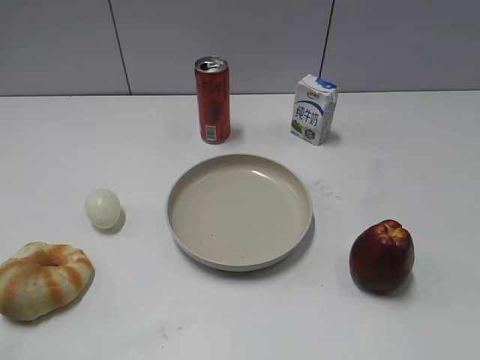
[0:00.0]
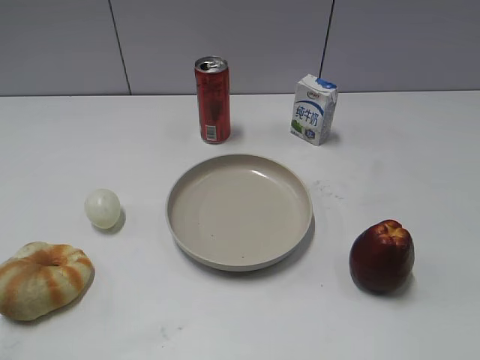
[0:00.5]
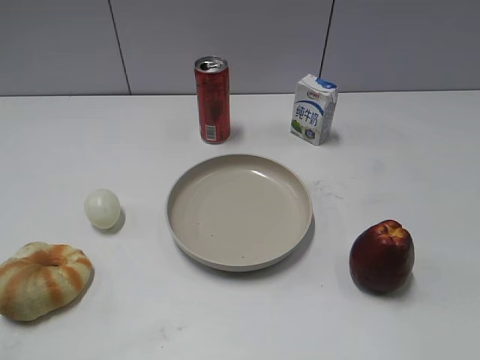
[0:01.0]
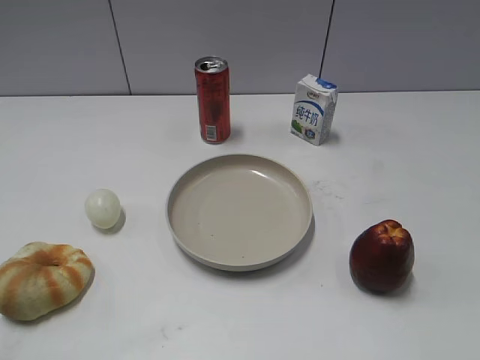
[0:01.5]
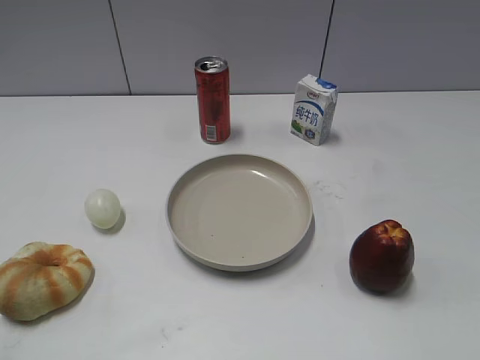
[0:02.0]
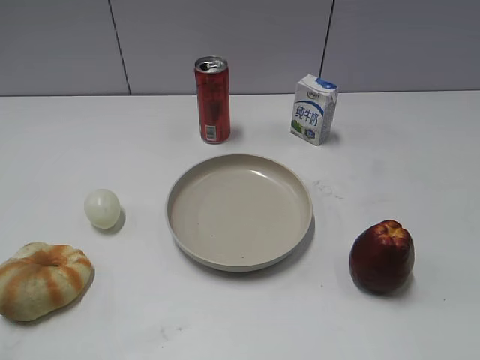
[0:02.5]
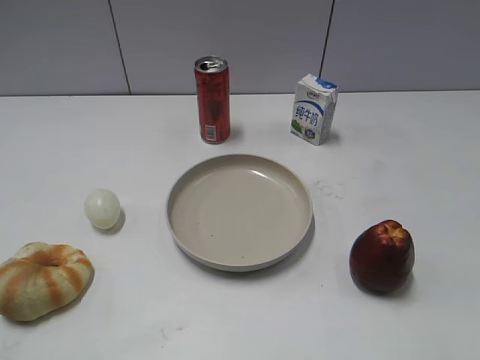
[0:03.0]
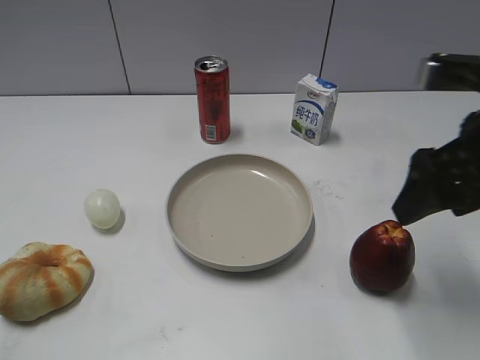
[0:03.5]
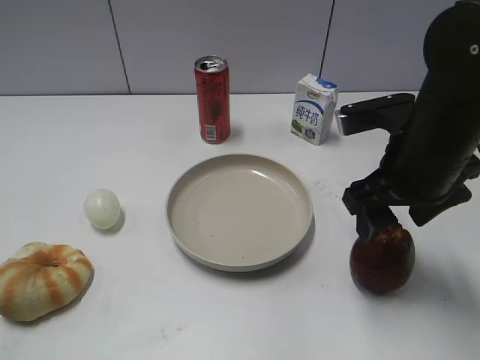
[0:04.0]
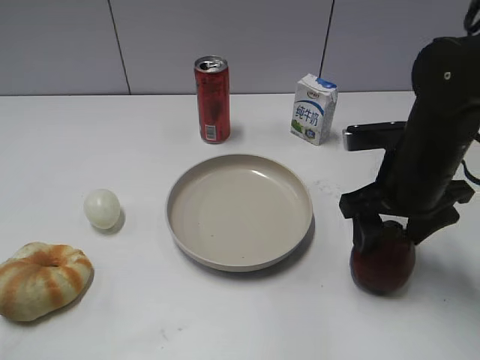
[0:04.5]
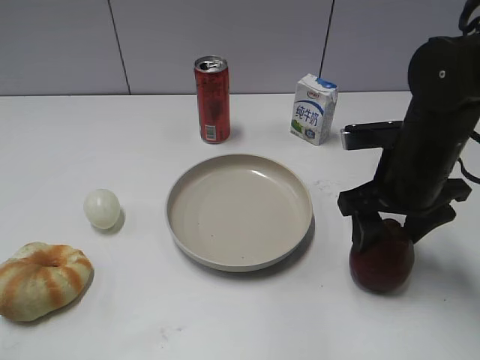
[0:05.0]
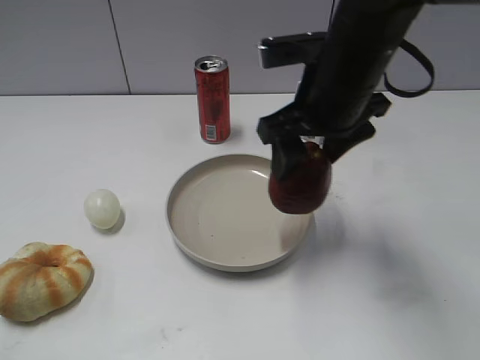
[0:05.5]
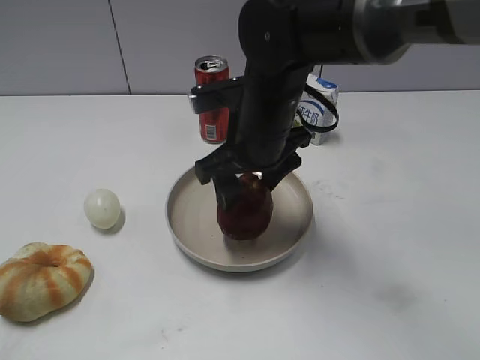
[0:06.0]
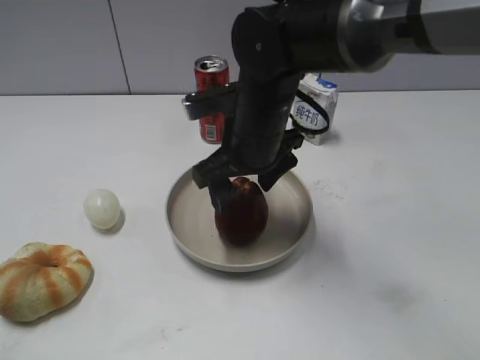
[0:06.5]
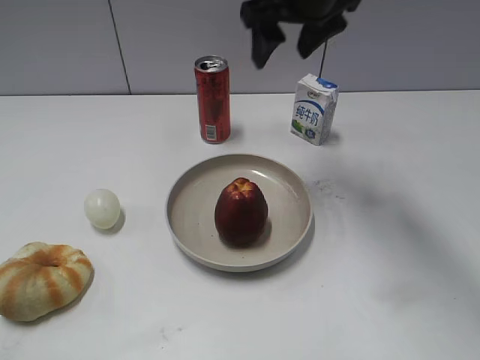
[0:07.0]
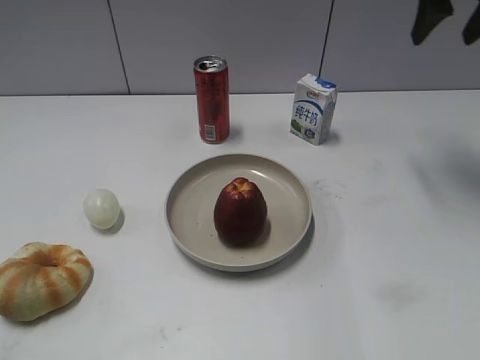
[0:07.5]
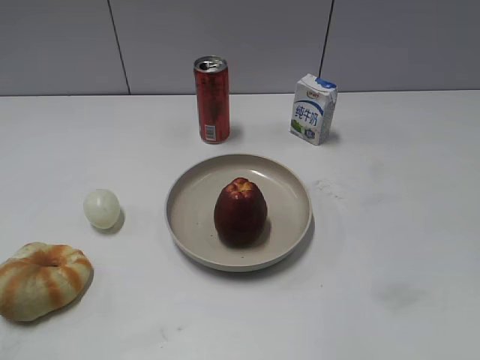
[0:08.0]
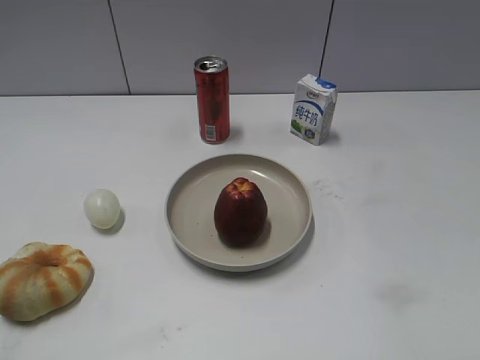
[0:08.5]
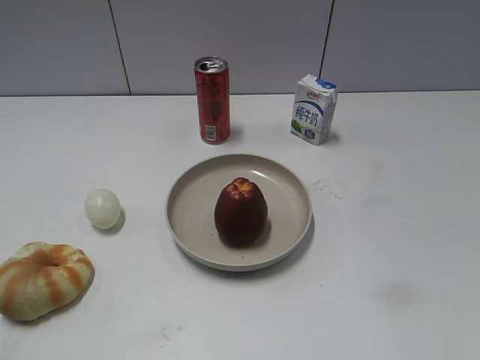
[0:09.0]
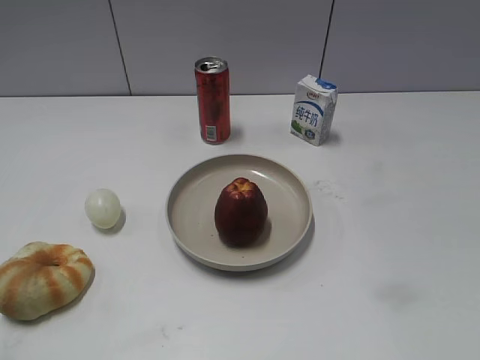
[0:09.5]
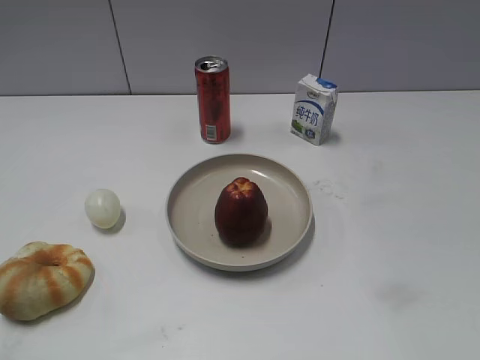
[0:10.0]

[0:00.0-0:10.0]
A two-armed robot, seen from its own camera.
Step, 0:03.5 to 0:04.5: Grasp the apple with right gripper.
Step, 0:05.5 to 0:06.5: Place the apple on the plate with right gripper.
0:02.0 to 0:04.0: The right gripper goes approximately 30 cm forward and to the left.
0:04.0 to 0:06.0: The right gripper goes about 15 cm to the left.
0:06.0 to 0:08.0: The right gripper heads to the right and upward, covering roughly 30 cm.
